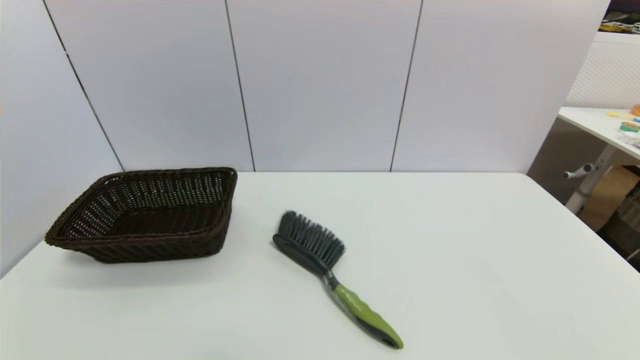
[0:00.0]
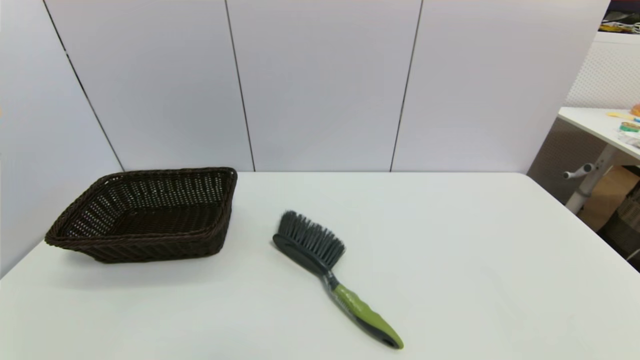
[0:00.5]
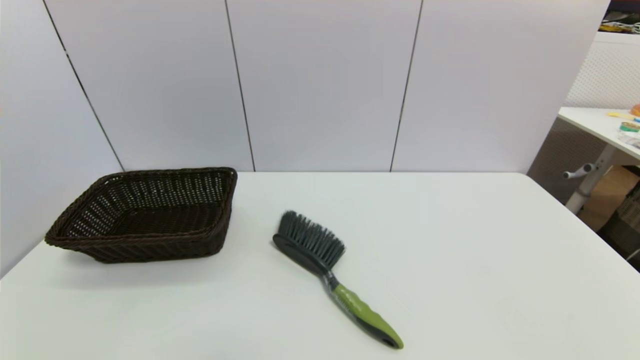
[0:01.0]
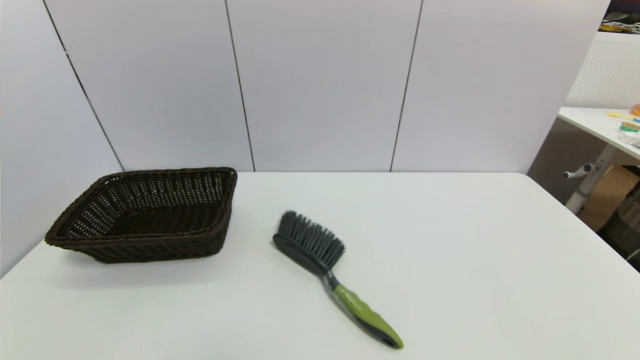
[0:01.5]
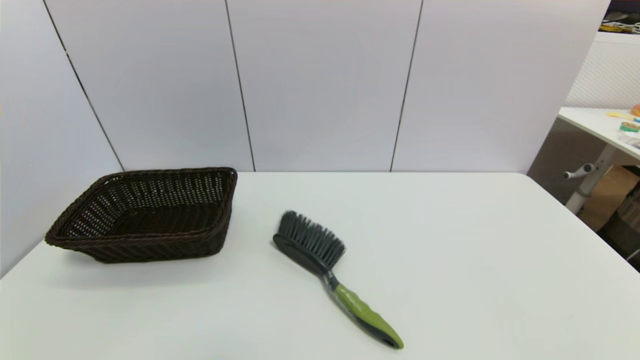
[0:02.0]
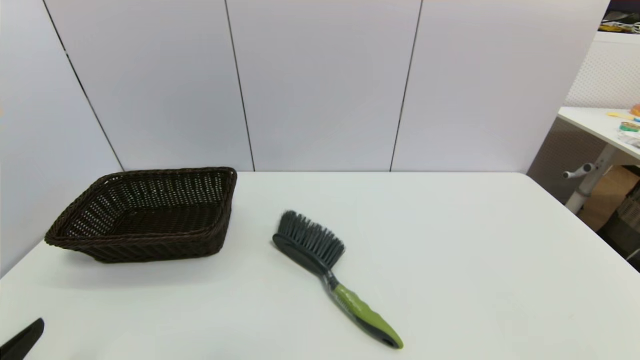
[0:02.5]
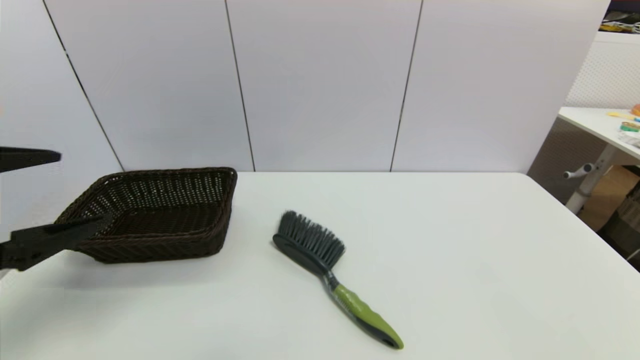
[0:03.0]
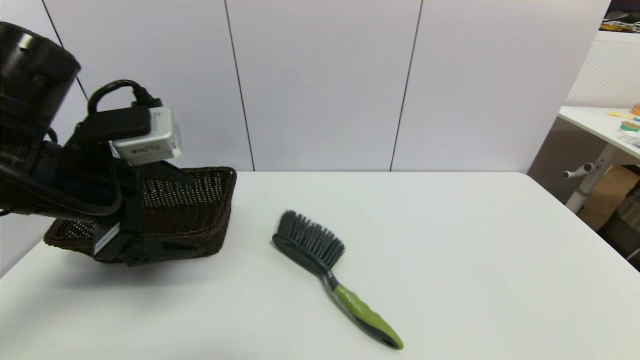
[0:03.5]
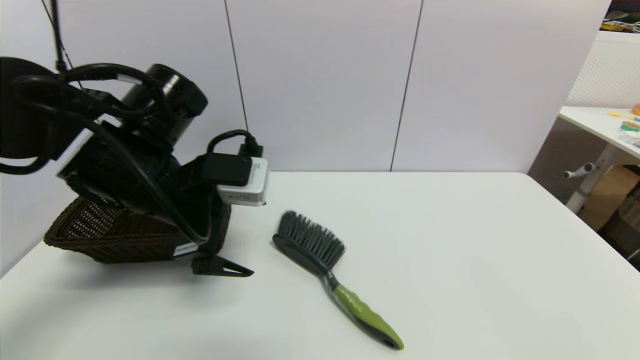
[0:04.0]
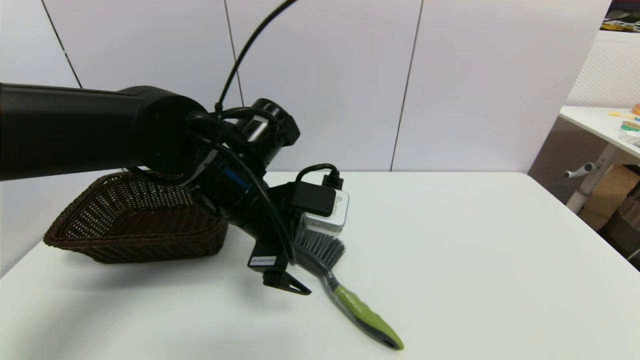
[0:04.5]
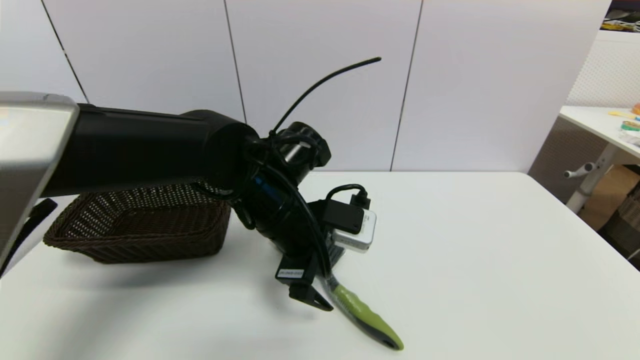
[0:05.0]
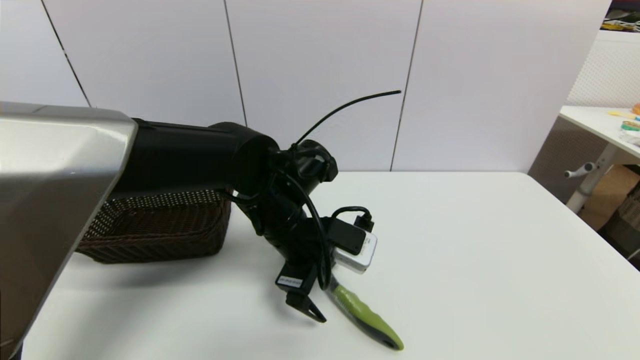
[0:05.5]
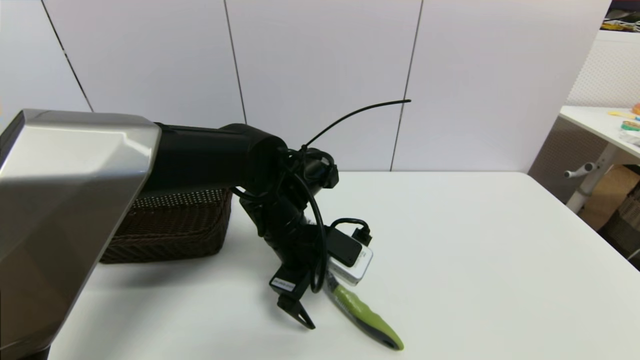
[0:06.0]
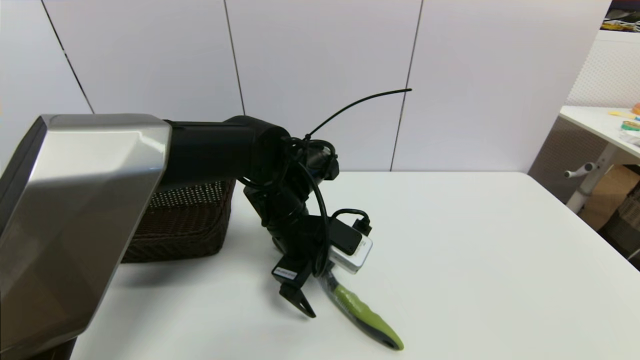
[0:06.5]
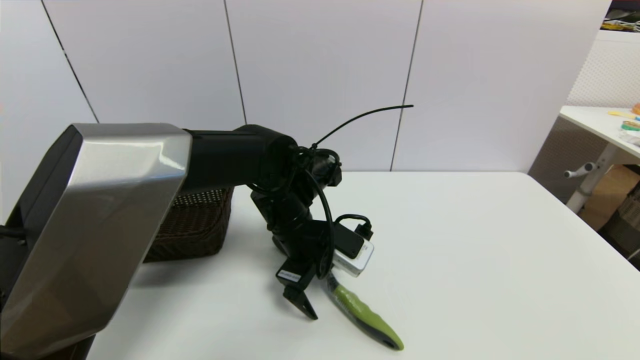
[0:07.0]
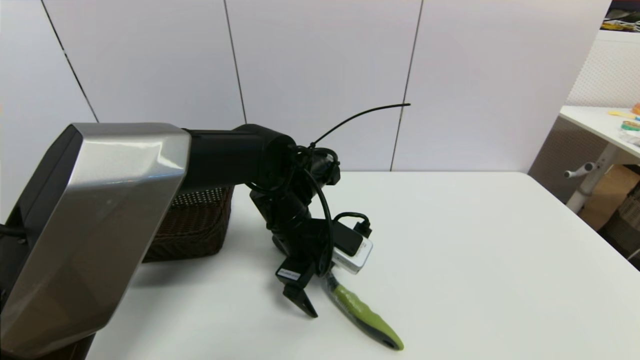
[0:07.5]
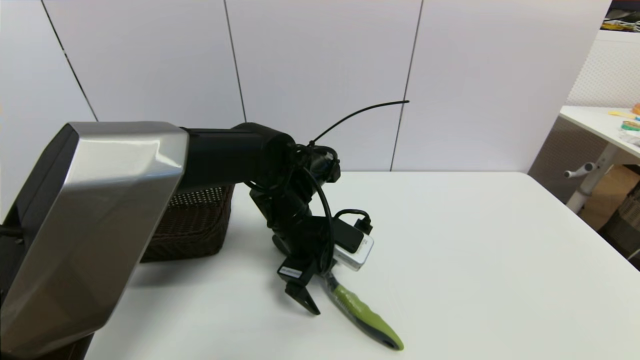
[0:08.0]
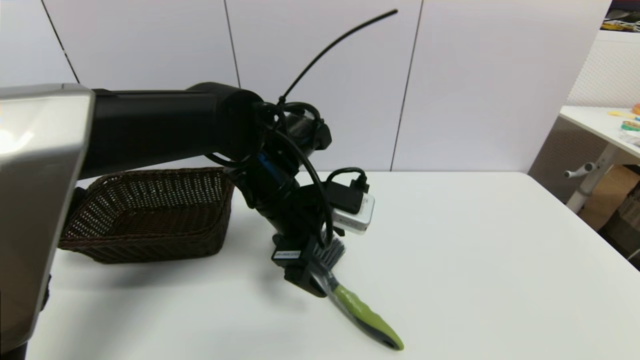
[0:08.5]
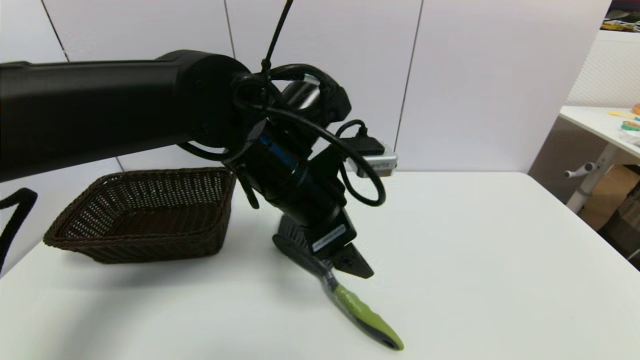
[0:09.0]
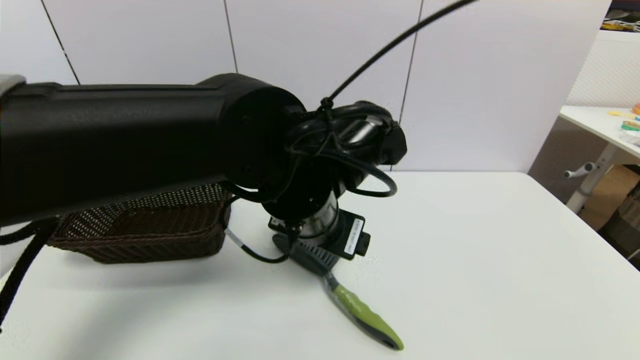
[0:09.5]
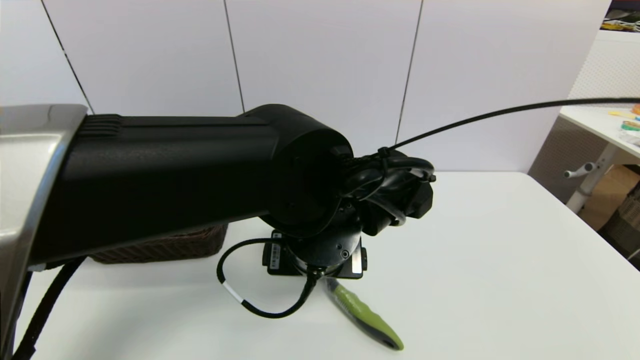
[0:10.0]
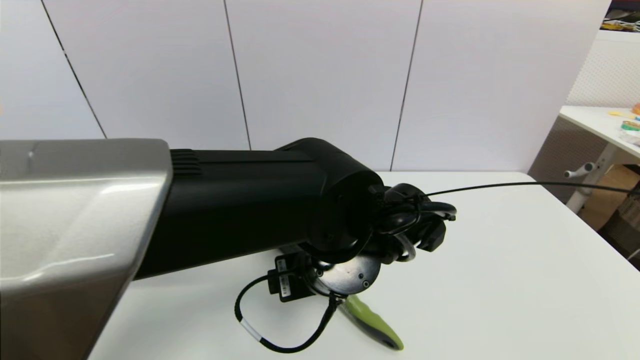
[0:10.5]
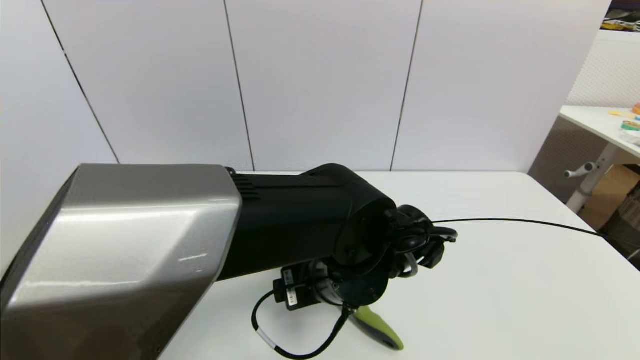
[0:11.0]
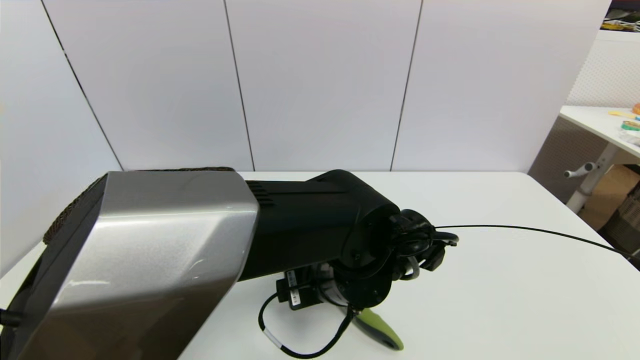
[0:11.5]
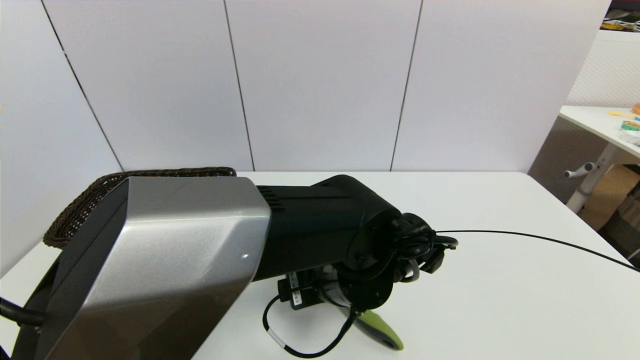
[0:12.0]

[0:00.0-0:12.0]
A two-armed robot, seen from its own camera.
Task of the whole recording: put the brush in the designated position.
0:00.0 to 0:02.0: The two grippers keep their place.
0:02.0 to 0:04.0: The left gripper heads forward, upward and to the right, covering roughly 35 cm.
0:04.0 to 0:06.0: The left gripper goes roughly 15 cm to the right and downward.
0:06.0 to 0:08.0: The grippers move only a little.
0:08.0 to 0:10.0: The left gripper heads backward and upward, covering some 10 cm.
0:10.0 to 0:12.0: The left gripper heads downward, covering some 5 cm.

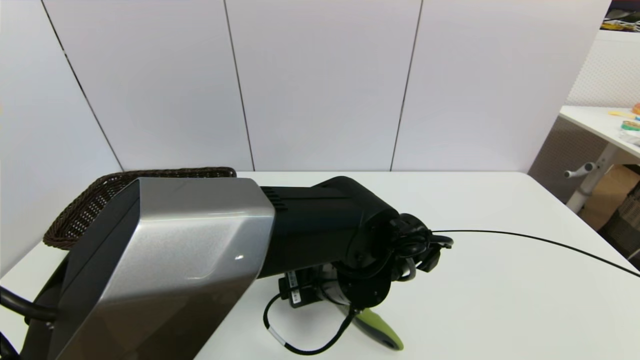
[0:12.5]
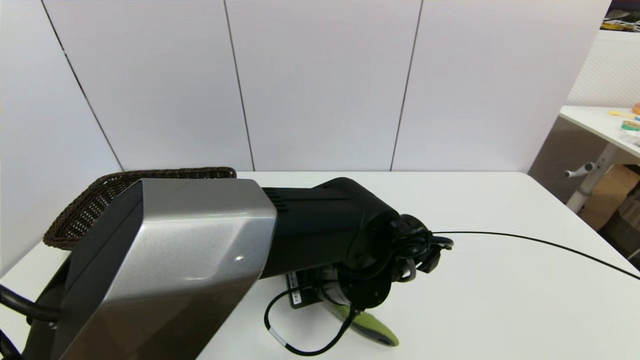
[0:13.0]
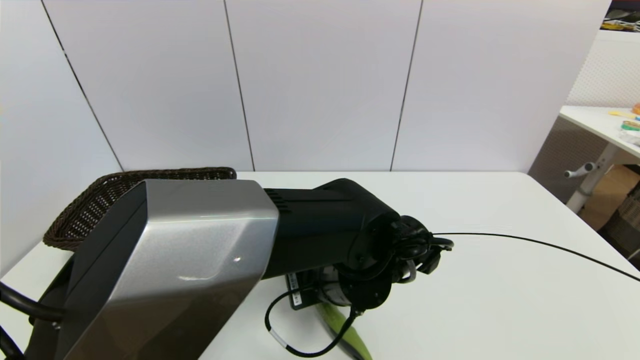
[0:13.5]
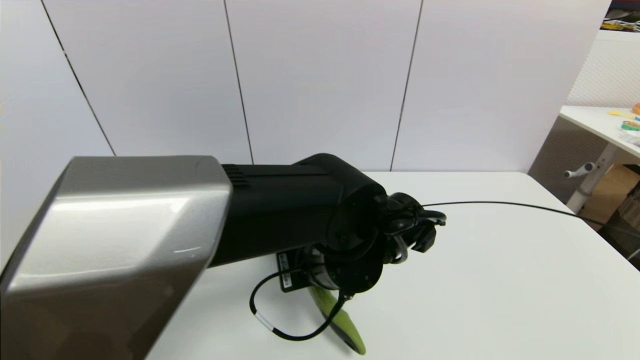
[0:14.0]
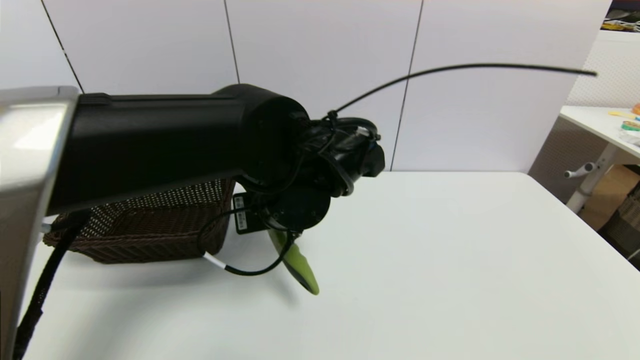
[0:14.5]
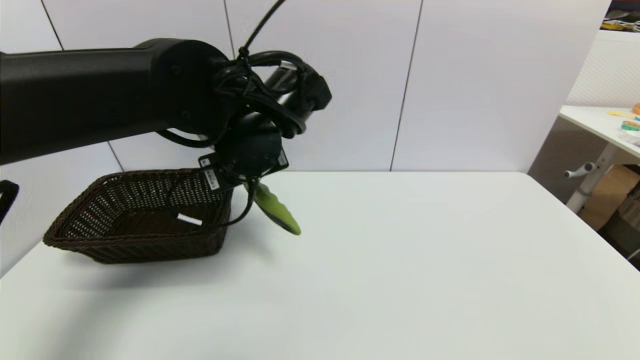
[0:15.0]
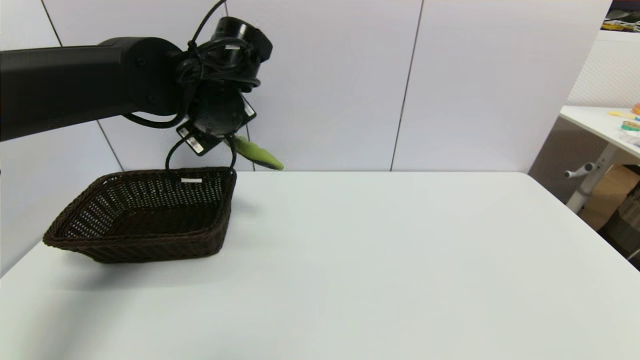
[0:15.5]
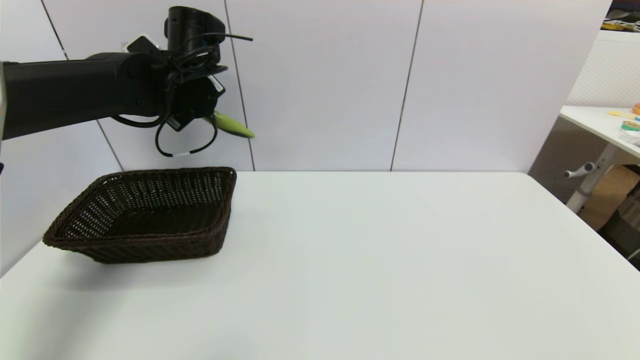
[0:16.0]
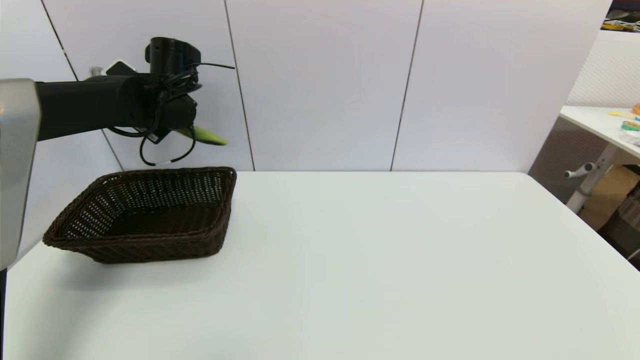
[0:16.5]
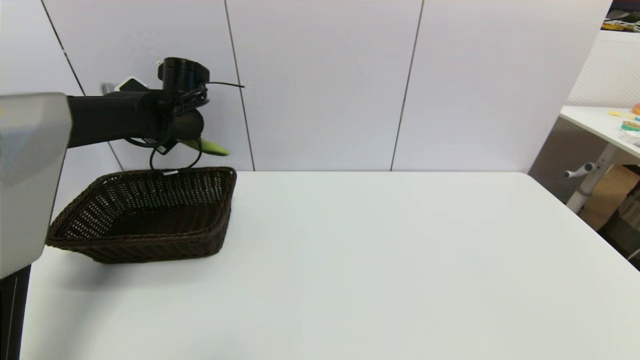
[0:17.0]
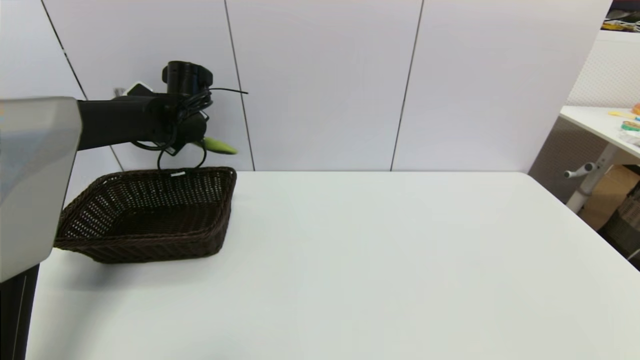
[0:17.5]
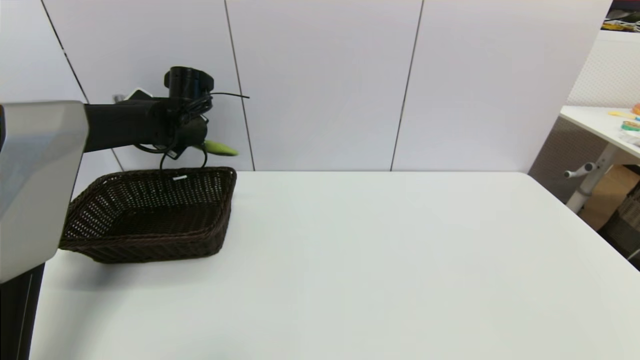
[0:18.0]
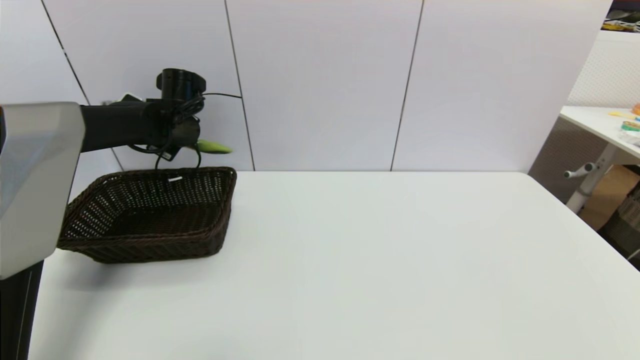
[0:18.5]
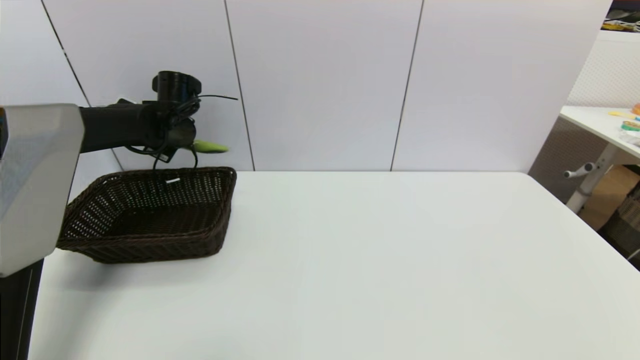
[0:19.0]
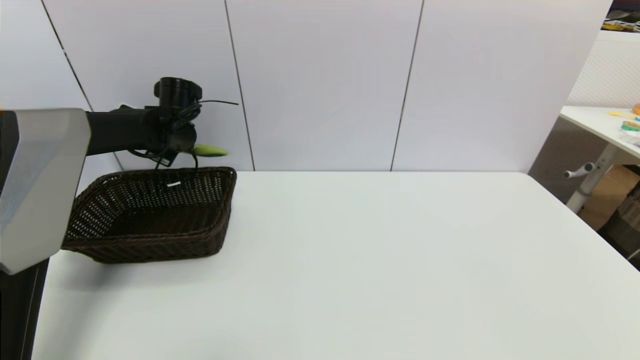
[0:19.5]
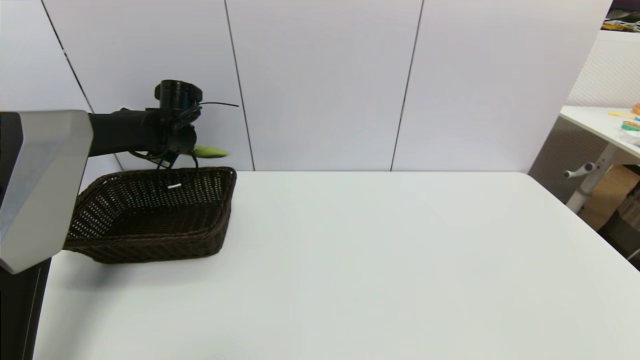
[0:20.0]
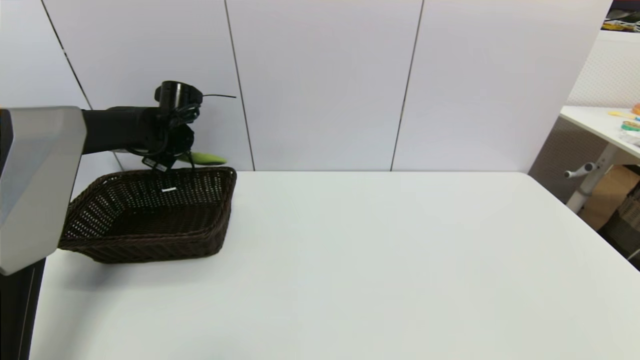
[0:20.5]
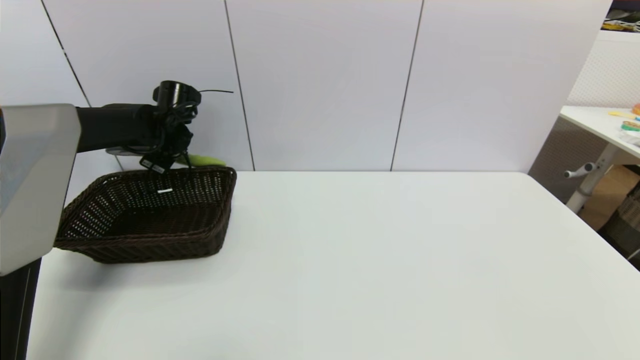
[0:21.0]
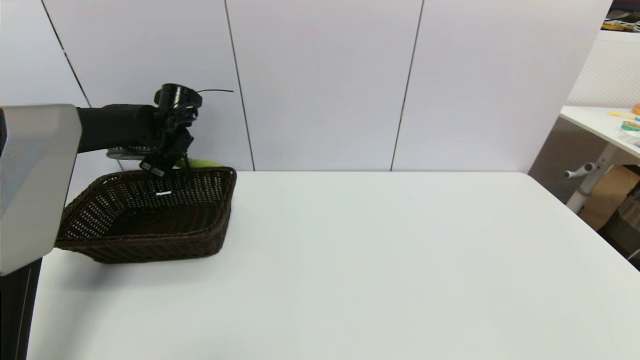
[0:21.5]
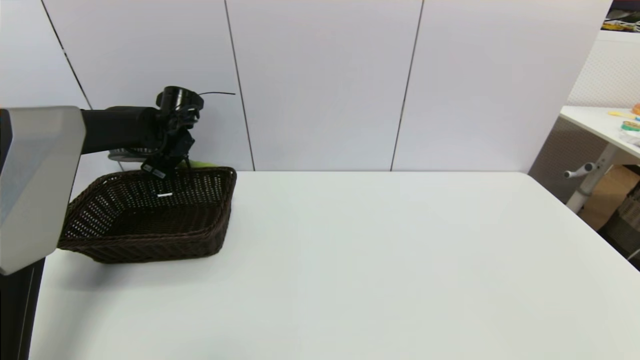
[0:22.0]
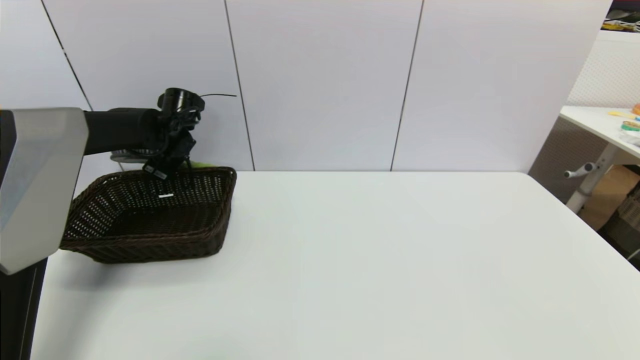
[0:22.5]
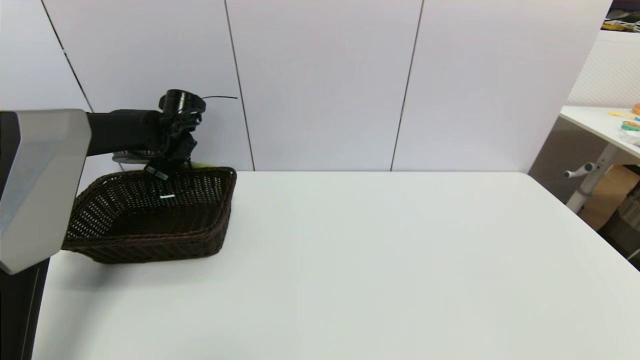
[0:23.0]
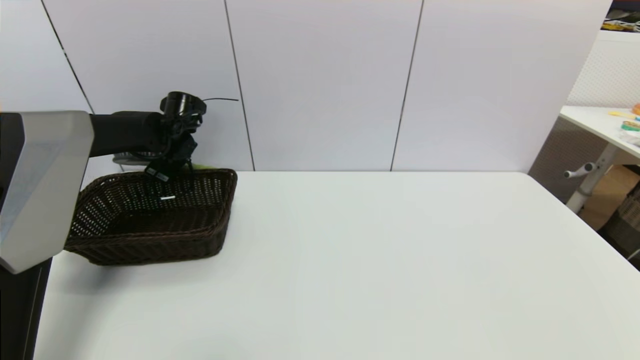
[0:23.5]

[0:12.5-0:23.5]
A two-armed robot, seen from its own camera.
Task of the whole recording: put the brush in the designated position.
0:12.5 to 0:14.5: The left gripper shifts approximately 10 cm upward and to the left, and closes up.
0:14.5 to 0:16.0: The left gripper travels forward, to the left and upward by roughly 20 cm.
0:16.0 to 0:18.0: The left gripper travels downward, forward and to the left by roughly 10 cm.
0:18.0 to 0:23.5: The grippers make only small movements.
